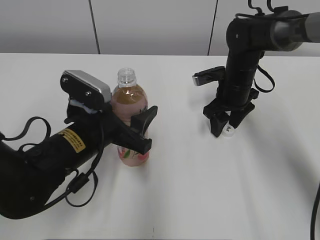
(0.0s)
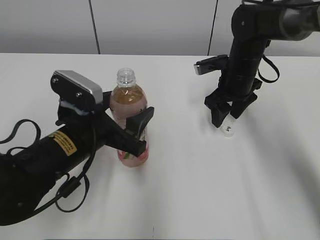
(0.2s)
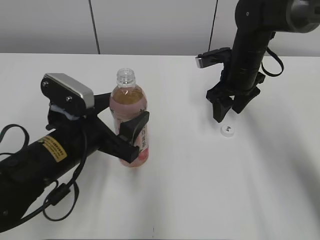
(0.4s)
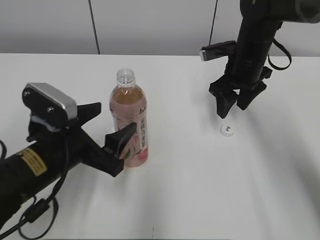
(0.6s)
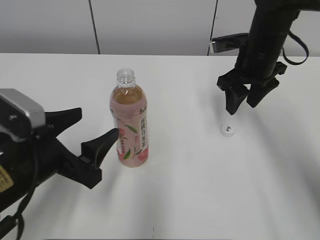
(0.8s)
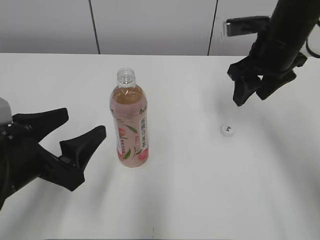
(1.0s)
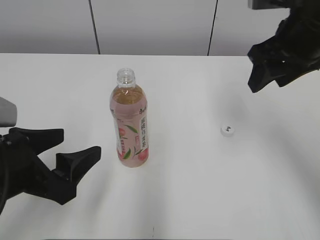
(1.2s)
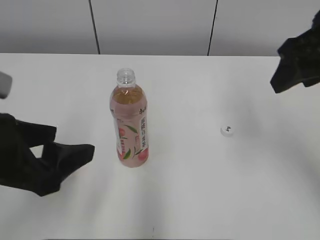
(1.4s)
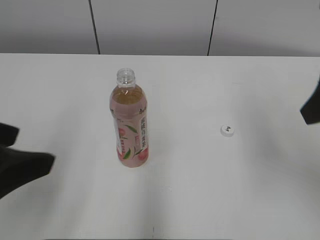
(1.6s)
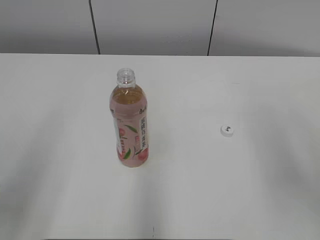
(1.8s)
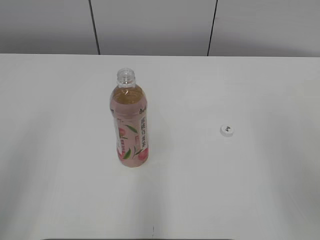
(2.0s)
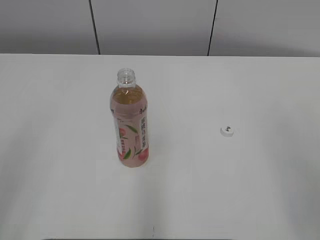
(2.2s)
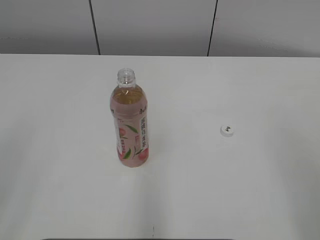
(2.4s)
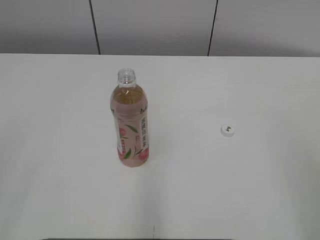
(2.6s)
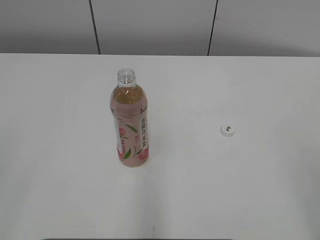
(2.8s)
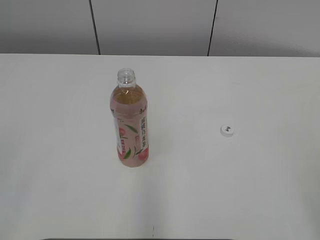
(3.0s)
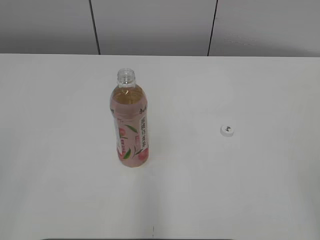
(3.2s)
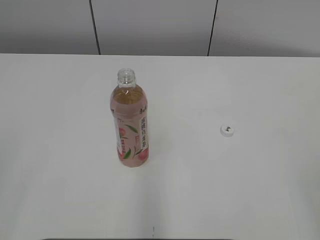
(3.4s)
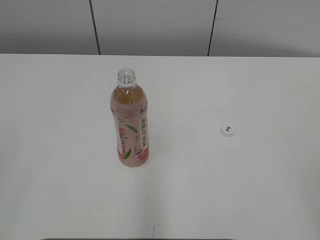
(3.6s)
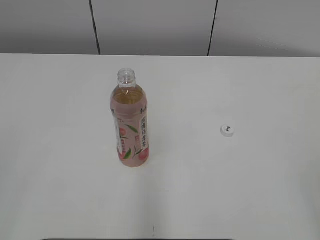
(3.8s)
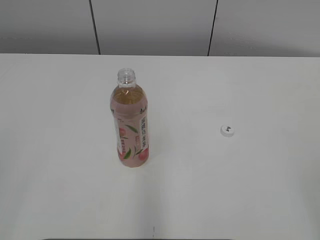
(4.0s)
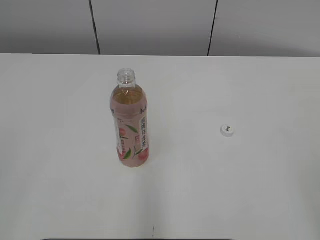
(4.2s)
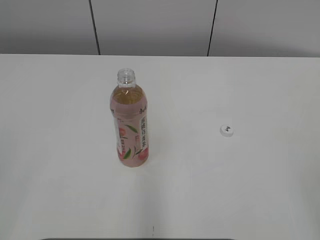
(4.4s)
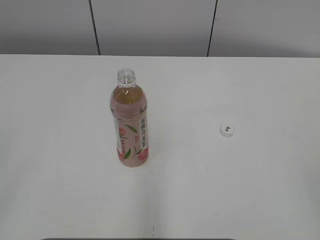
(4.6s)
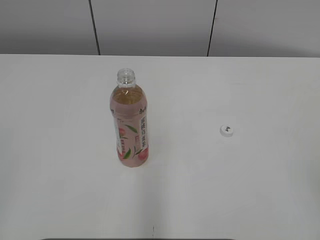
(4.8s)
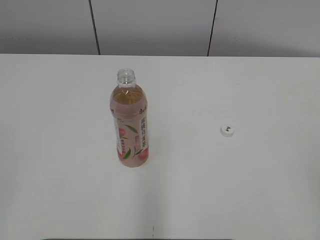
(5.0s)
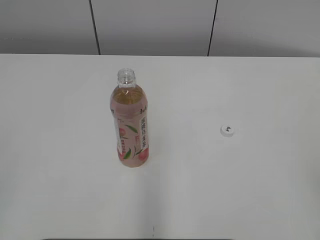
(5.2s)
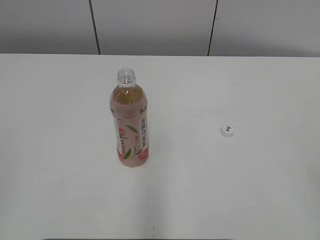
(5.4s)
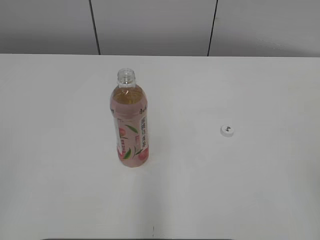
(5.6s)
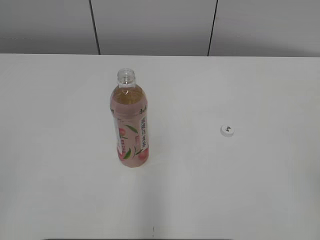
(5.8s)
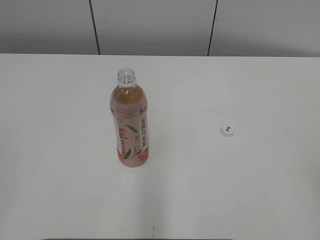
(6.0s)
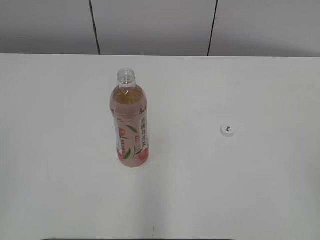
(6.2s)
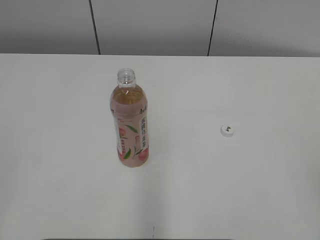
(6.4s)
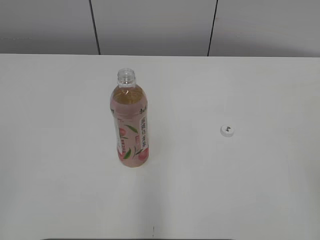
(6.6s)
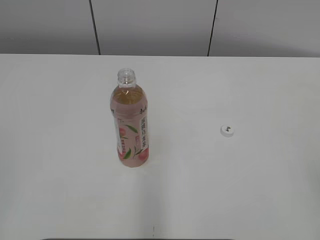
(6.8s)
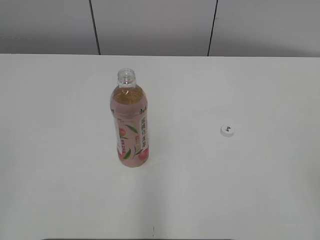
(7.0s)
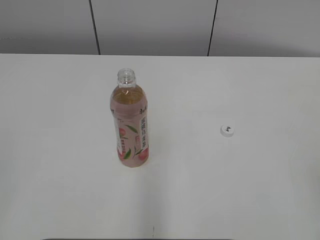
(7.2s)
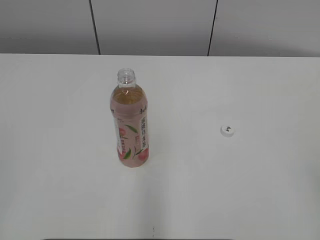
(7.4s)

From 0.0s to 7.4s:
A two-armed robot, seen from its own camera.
From 0.0s to 1.4s: The right gripper heads upward and backward, covering approximately 25 cm. The left gripper moves backward, upward and to the left, roughly 15 cm.
From 1.4s to 3.0s: The right gripper goes approximately 25 cm backward. Meanwhile the left gripper heads backward, to the left and upward, covering some 20 cm.
From 6.0s to 7.4s: Neither gripper changes place.

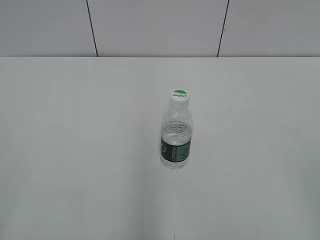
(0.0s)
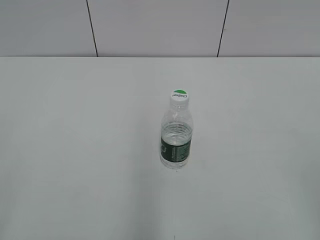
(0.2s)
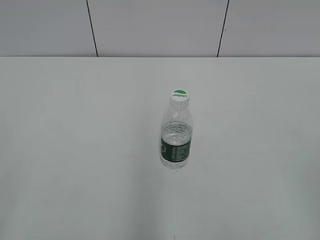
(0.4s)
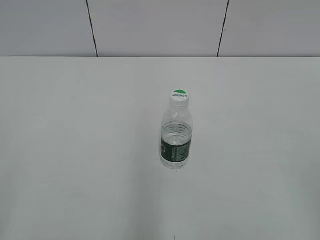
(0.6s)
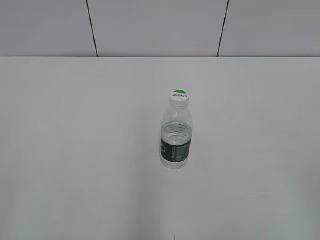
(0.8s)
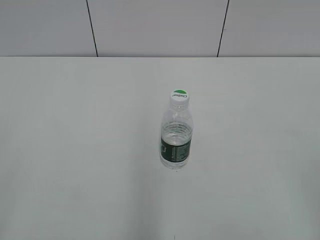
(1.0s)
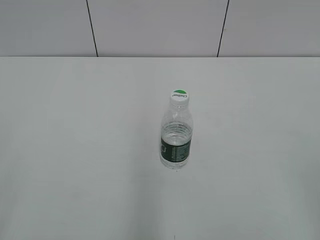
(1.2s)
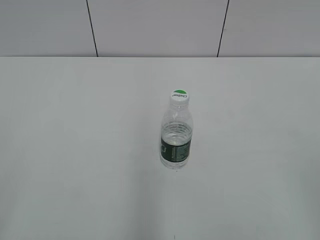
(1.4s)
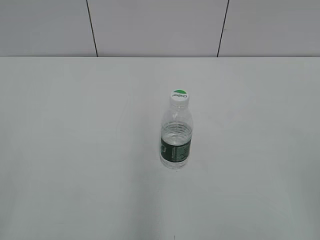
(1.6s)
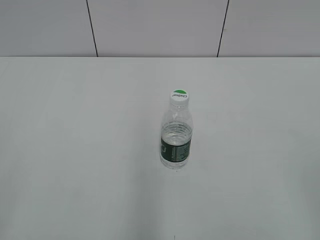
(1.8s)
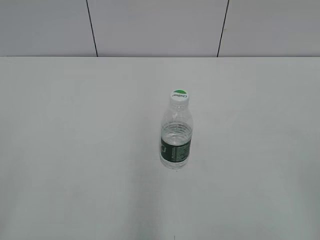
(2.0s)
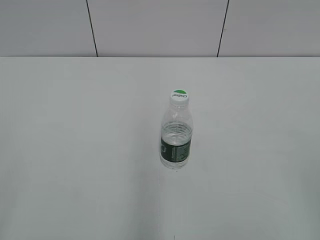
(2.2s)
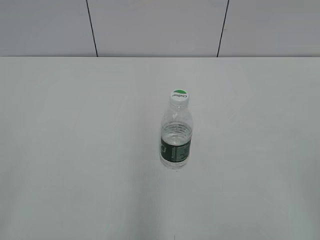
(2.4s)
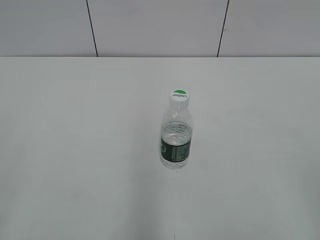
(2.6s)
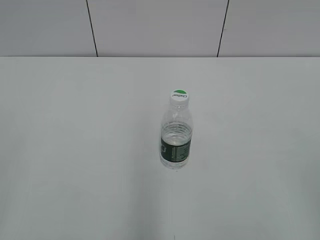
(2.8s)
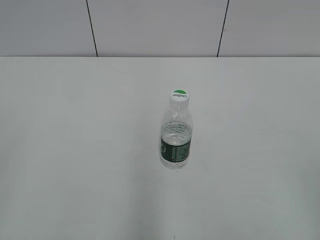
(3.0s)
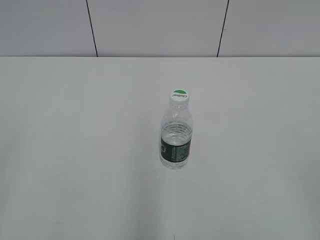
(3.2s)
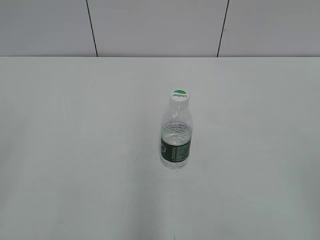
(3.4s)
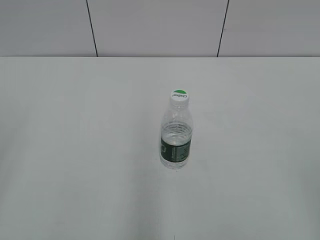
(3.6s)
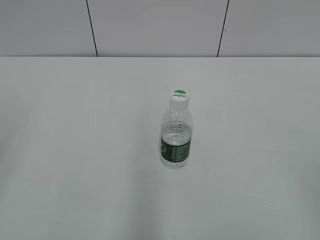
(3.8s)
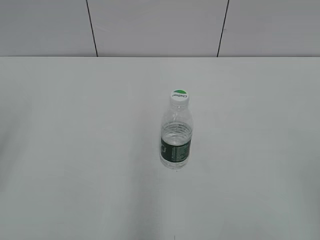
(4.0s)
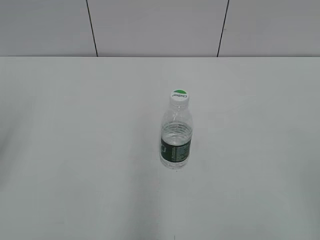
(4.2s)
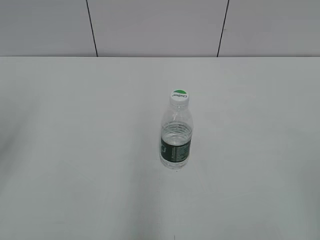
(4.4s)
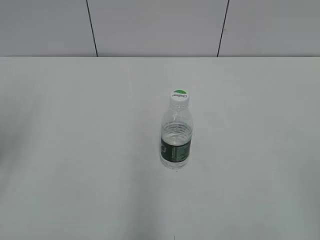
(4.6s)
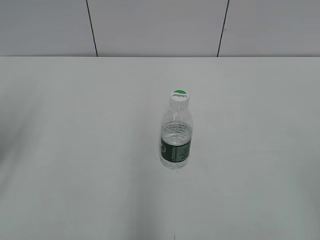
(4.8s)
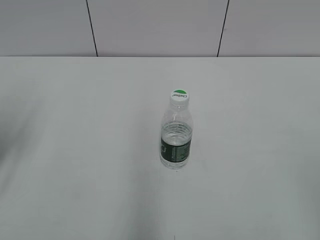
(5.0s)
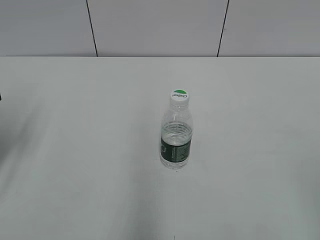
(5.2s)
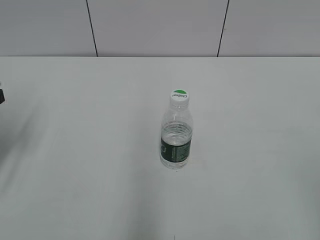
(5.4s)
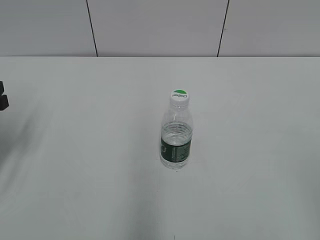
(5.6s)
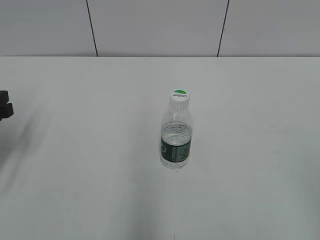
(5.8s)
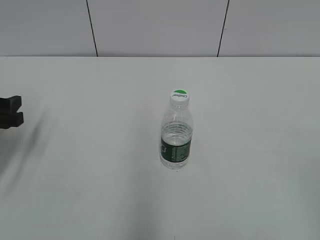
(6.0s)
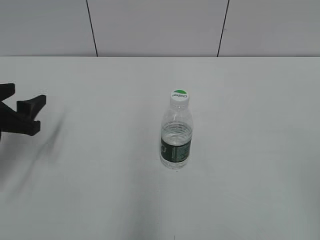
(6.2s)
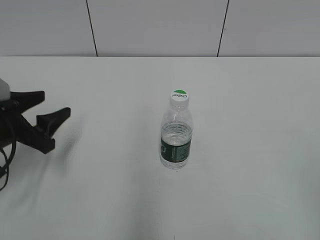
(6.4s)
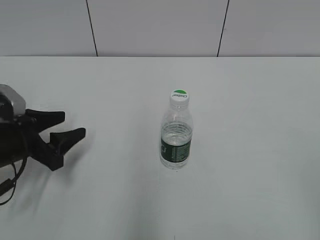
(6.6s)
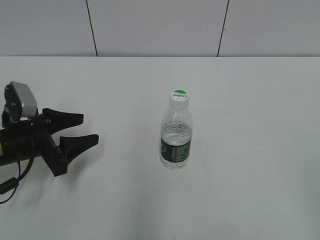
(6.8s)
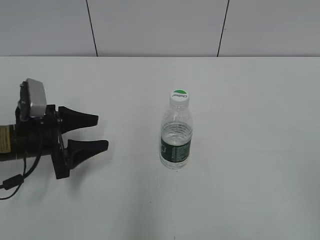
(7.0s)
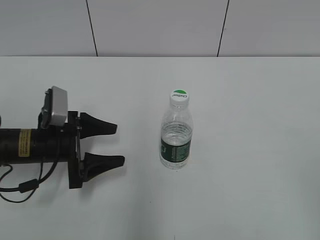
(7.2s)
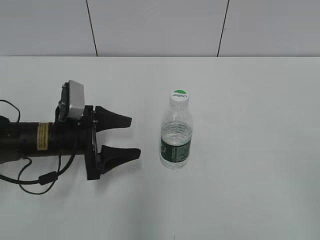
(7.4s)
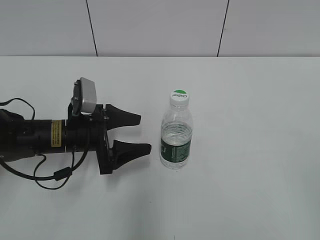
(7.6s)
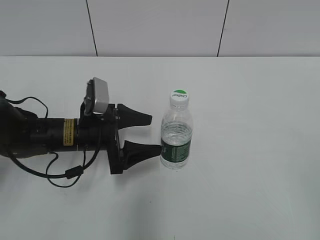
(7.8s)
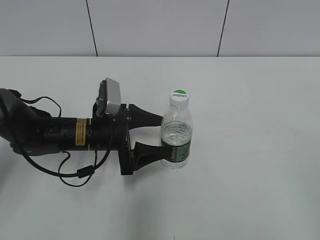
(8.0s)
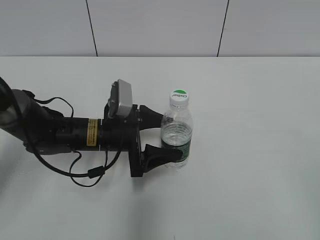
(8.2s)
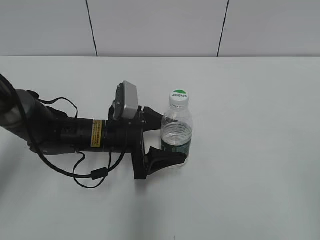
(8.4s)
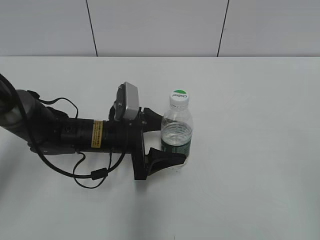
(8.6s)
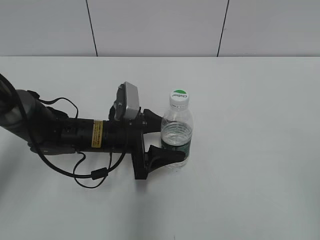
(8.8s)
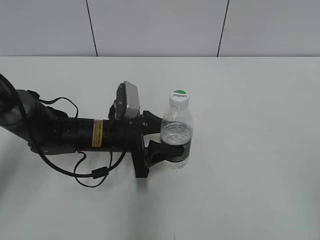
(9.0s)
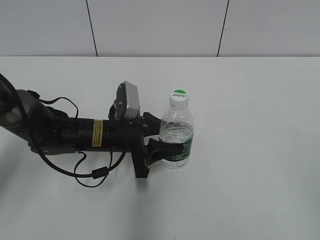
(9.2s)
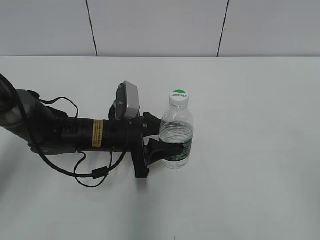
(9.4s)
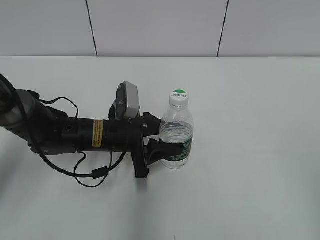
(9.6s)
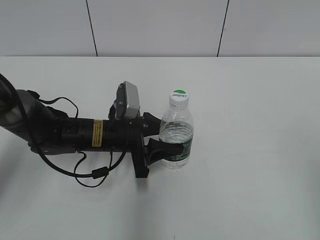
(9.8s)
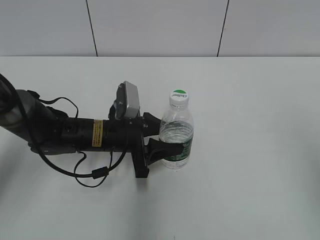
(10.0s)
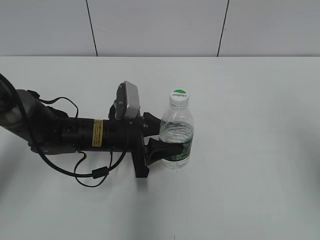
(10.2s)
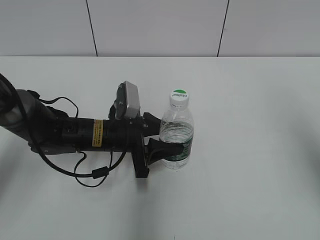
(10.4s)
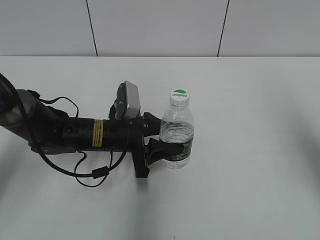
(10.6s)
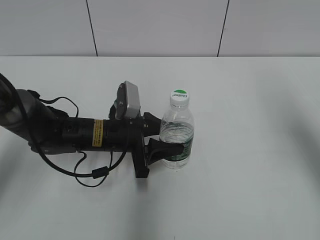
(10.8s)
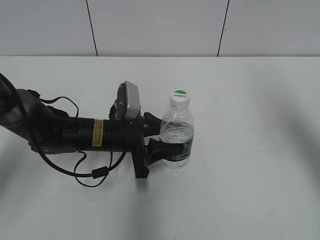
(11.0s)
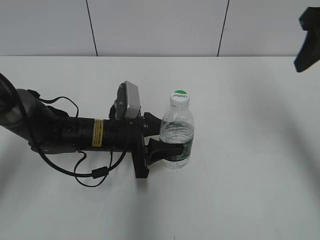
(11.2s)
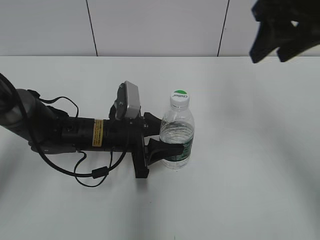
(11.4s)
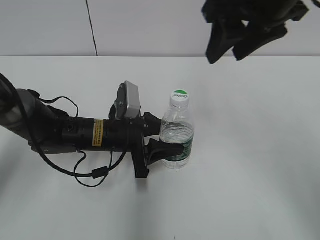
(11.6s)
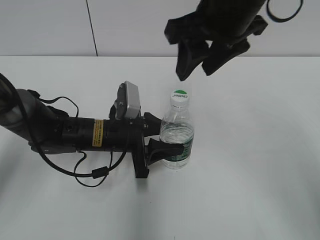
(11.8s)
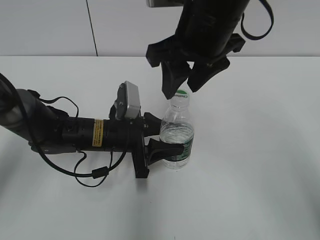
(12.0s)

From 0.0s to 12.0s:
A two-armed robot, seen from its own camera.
Step, from 0.0s to 9.2s: Grasp the bottle and move it to the center of the table with the left gripper.
From 4.4s to 6.0s: The left gripper moves downward and forward, approximately 15 cm.
From 6.0s to 7.6s: The left gripper travels to the right and downward by about 15 cm, and opens.
From 7.6s to 9.0s: The left gripper heads to the right, covering roughly 5 cm, and closes up.
From 9.0s to 10.4s: The right gripper travels forward by roughly 15 cm, and closes its fingers.
From 10.4s to 12.0s: The right gripper travels to the left and forward by some 25 cm.

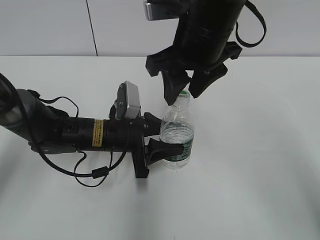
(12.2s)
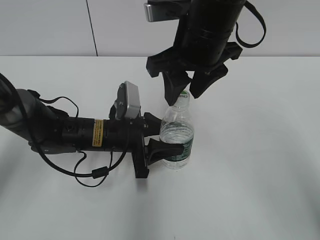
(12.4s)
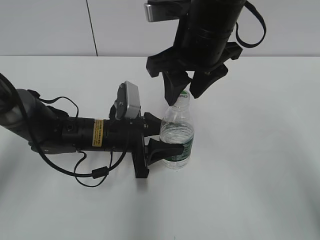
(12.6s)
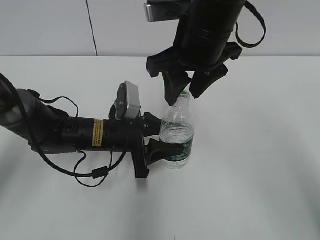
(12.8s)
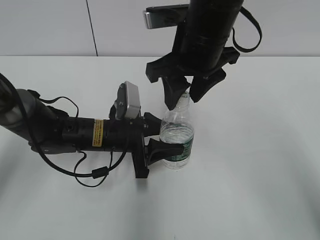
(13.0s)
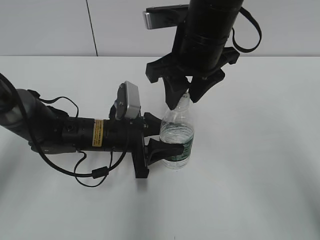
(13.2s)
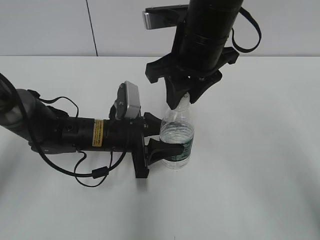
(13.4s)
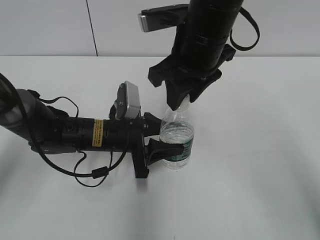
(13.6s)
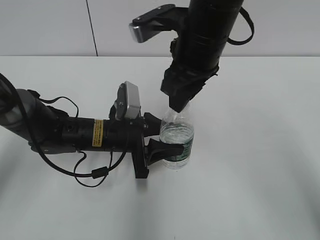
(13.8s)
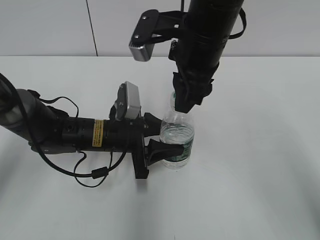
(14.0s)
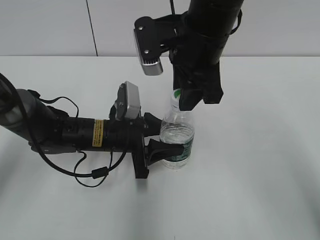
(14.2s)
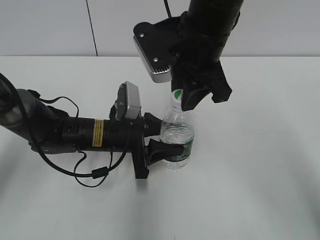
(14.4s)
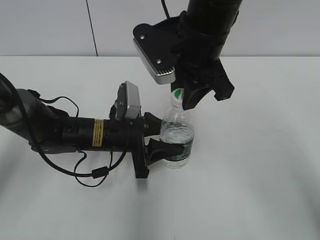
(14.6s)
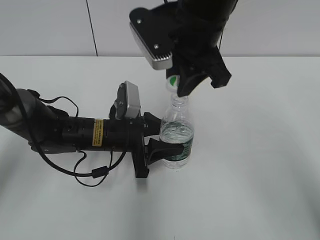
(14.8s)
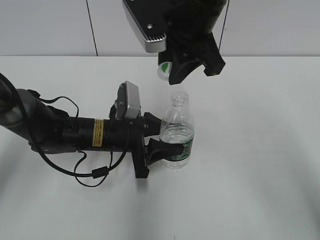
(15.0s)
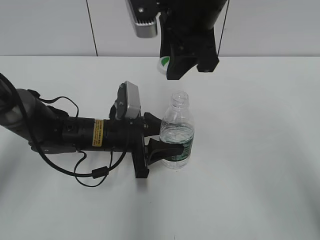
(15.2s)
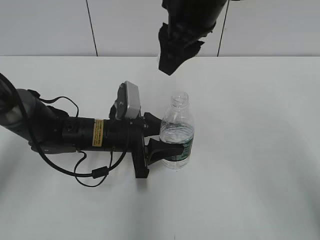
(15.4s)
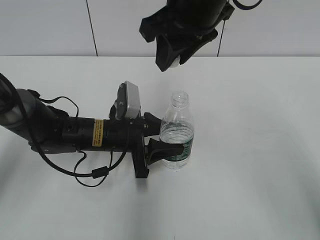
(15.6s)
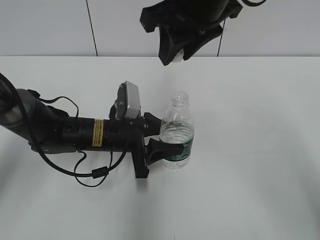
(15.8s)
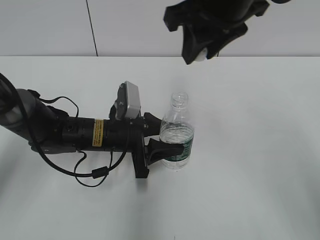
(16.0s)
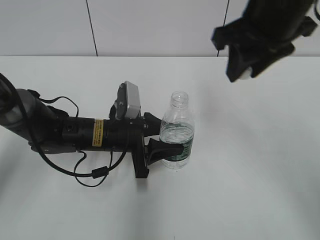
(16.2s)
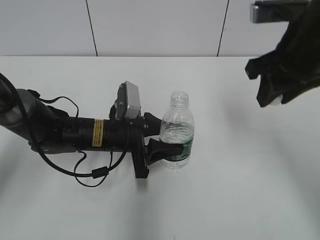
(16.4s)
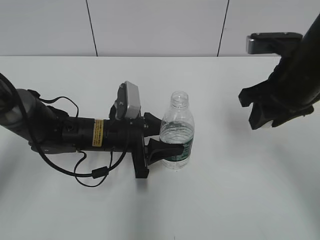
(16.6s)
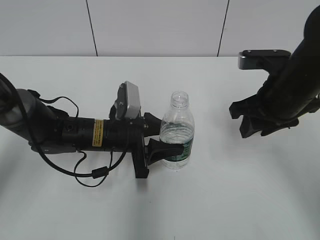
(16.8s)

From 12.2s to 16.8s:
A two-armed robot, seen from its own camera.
Step, from 12.2s to 14.8s: Unscrew the bottle cap with the right gripper while holding the bottle with the left gripper.
From 12.2s to 13.8s: The right gripper closes its fingers.
From 15.2s to 16.8s: The right gripper is displaced to the right and downward by roughly 20 cm.
